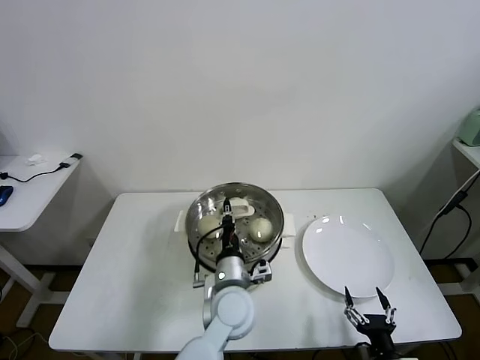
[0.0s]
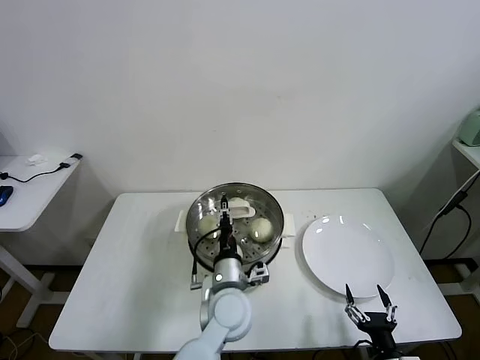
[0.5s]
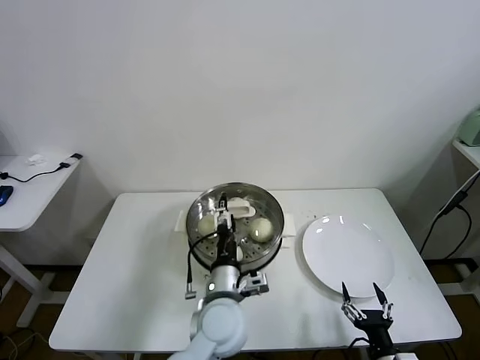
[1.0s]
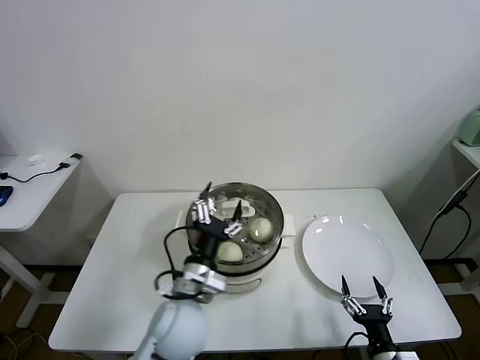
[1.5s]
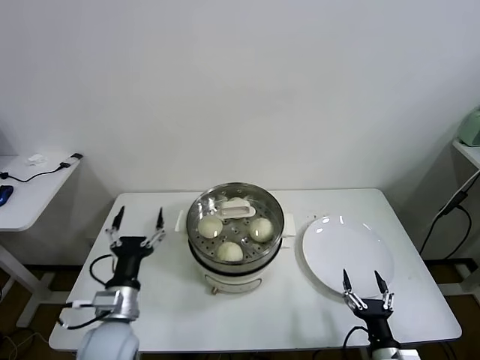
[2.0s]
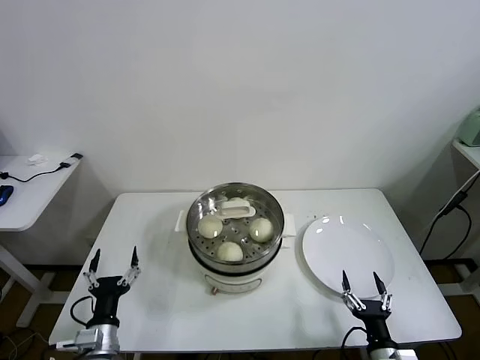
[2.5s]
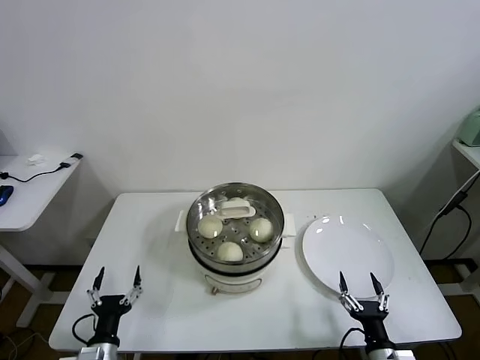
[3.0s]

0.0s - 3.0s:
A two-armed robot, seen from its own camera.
Task of the whole recording: take steamed baozi put them in steamer.
0.0s - 1.5s: The left gripper is displaced to the left by approximately 5 cm, and opens.
1.5s - 3.0s: The left gripper moves to the left, downward and backward, about 30 cm.

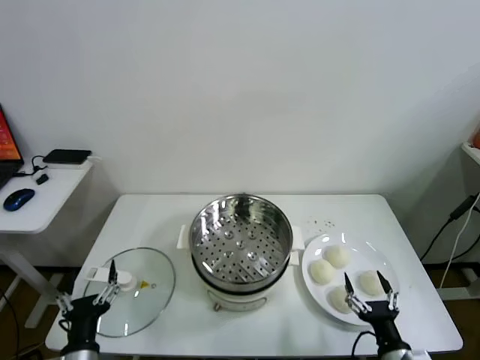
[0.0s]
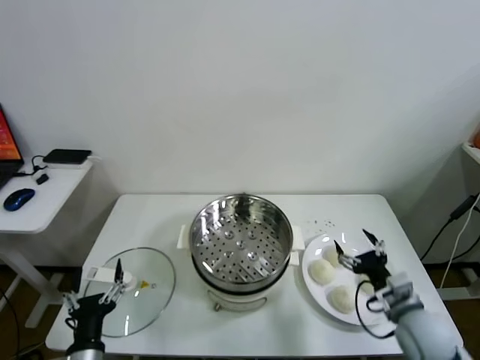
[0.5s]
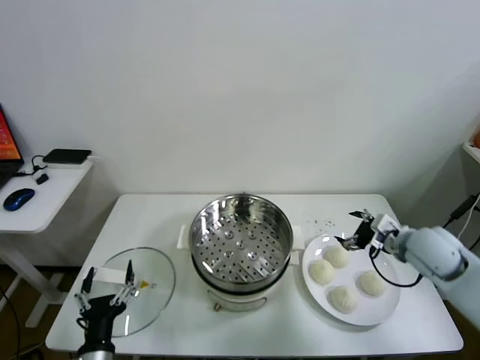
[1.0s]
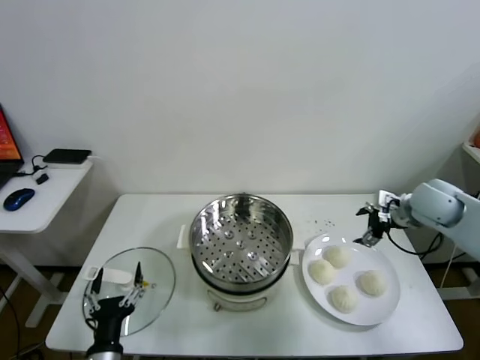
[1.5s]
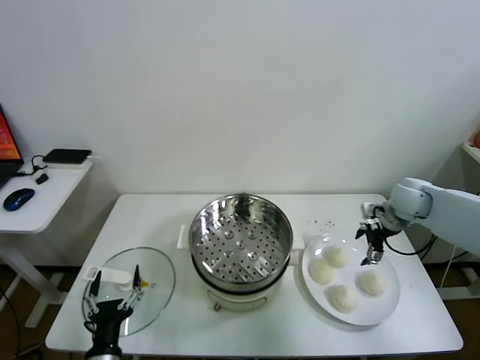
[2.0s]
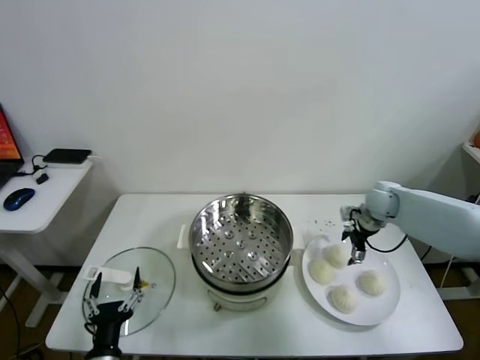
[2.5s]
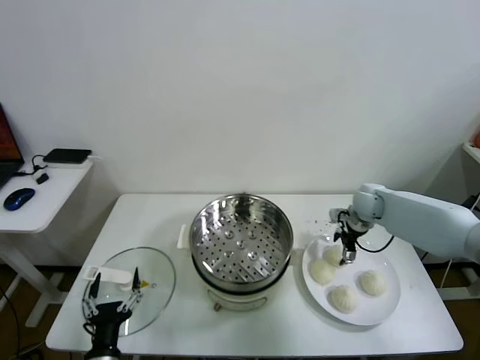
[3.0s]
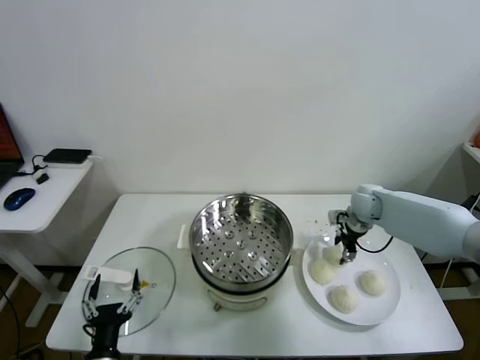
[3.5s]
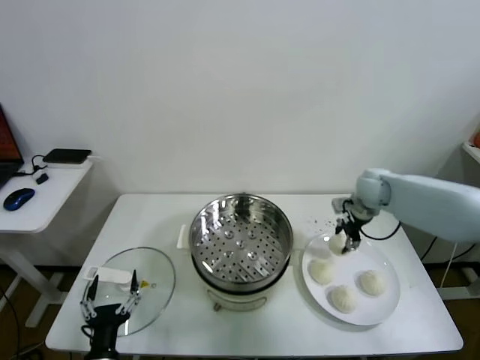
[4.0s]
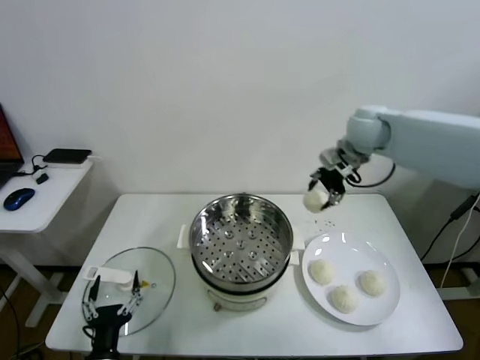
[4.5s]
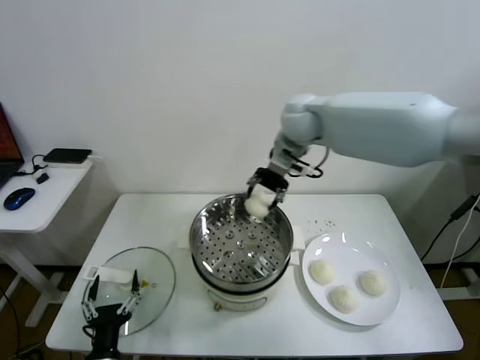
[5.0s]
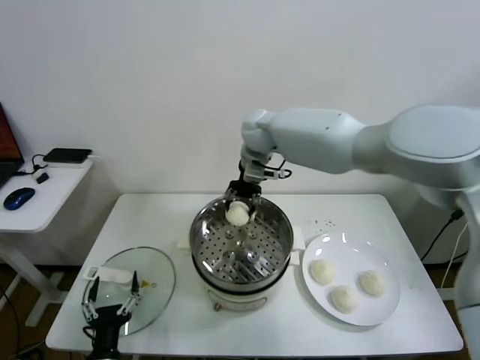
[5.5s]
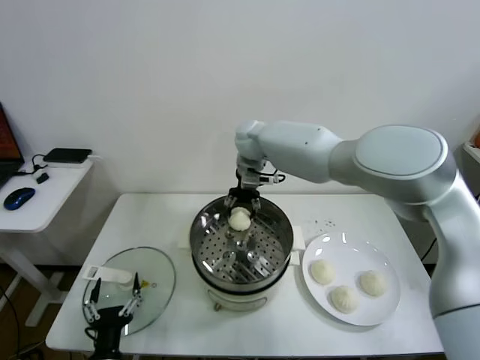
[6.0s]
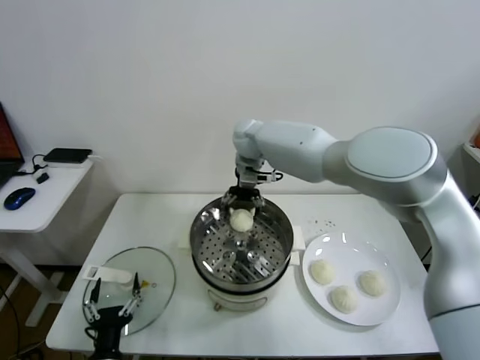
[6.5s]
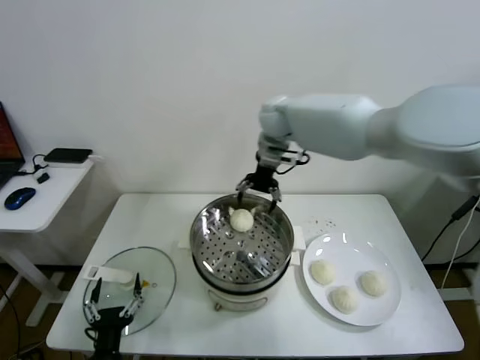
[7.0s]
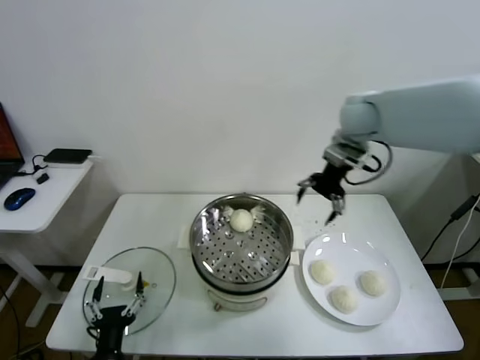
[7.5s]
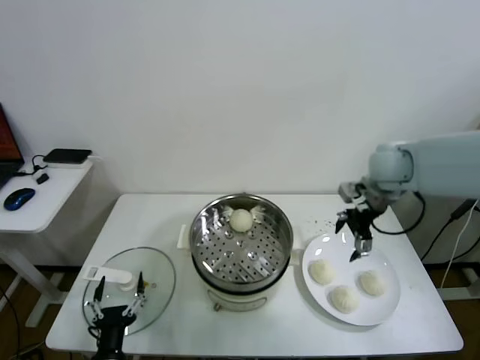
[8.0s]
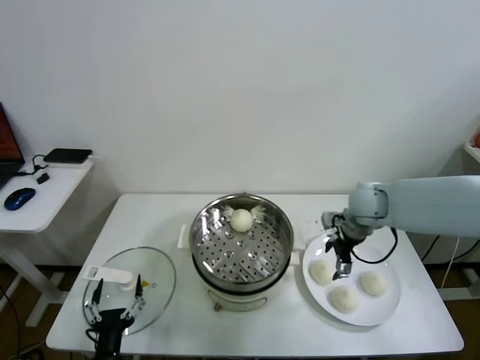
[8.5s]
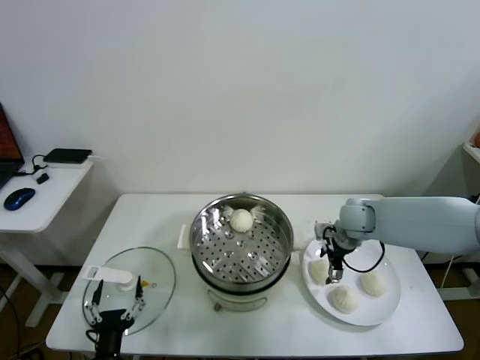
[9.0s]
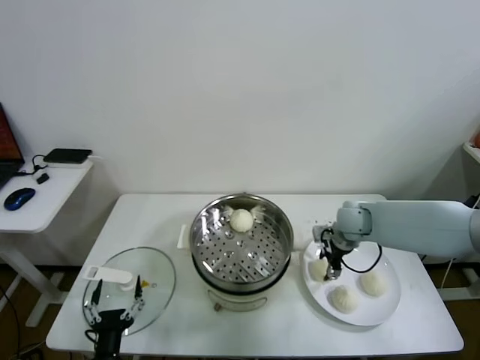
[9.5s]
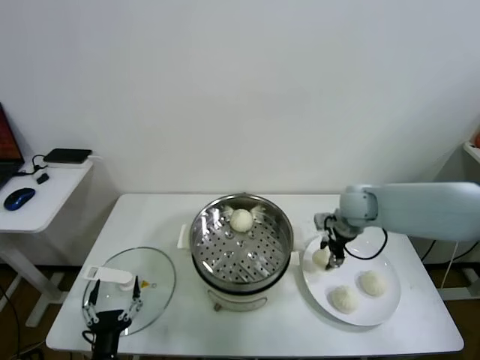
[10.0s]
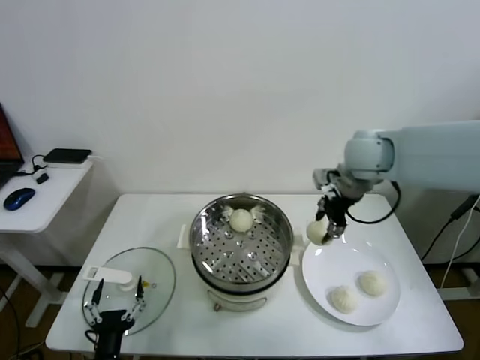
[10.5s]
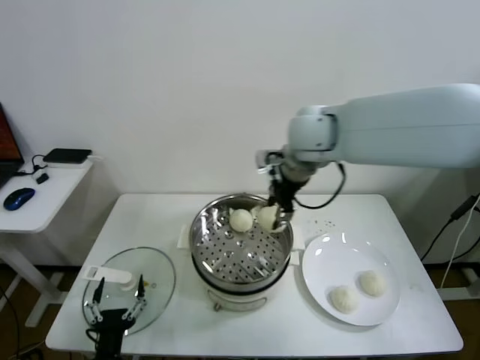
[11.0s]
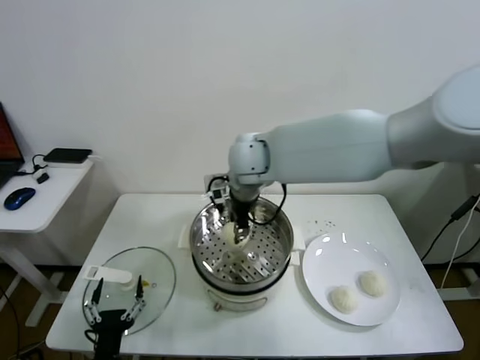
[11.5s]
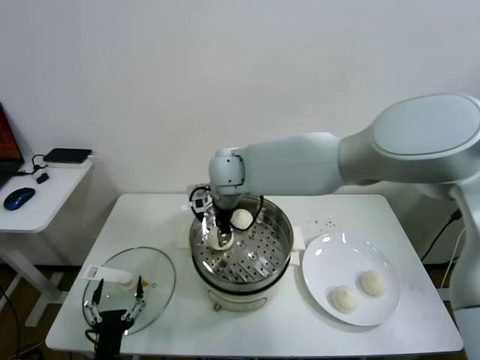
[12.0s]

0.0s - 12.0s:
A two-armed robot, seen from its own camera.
Task of the whole recording: take steamed baozi put them in steamer.
Step, 0.0s - 3.5s: Grasp the baozi in the plate with right gripper.
Step, 4.0s - 6.5s: Place the baozi on the steamer with right gripper.
Step, 7.0s - 9.5s: Grasp the baozi in the plate with right gripper.
2.0s - 4.0s: The right gripper goes some 5 cm to the left, and closes its fingers.
4.0s - 6.0s: The right gripper travels to the left by roughly 30 cm.
6.0s - 8.0s: The right gripper goes some 30 cm to the right and backward, and opens.
8.0s - 10.0s: The right gripper travels downward by some 10 cm, and closes up.
10.0s - 12.0s: The right gripper is displaced to the left by approximately 30 cm.

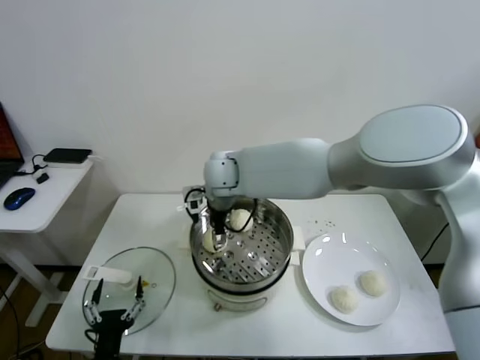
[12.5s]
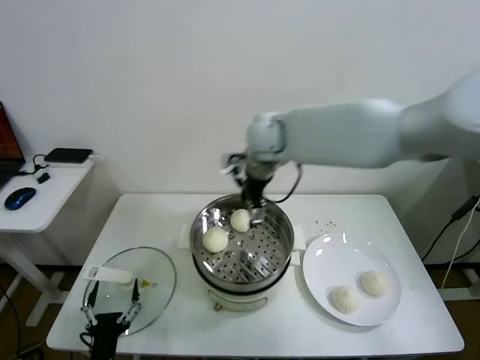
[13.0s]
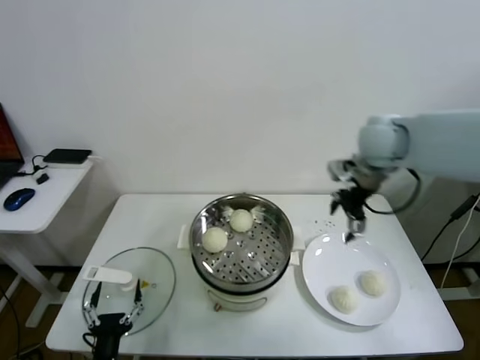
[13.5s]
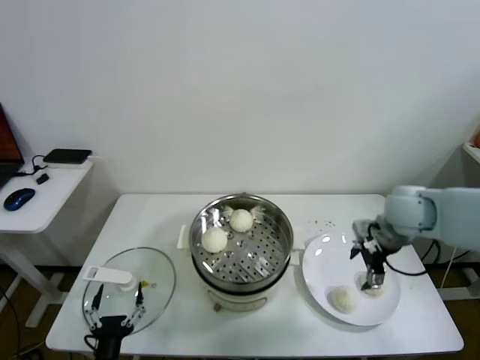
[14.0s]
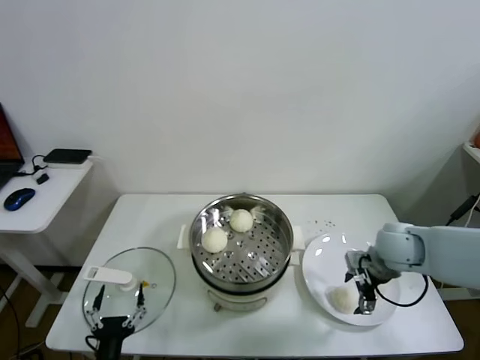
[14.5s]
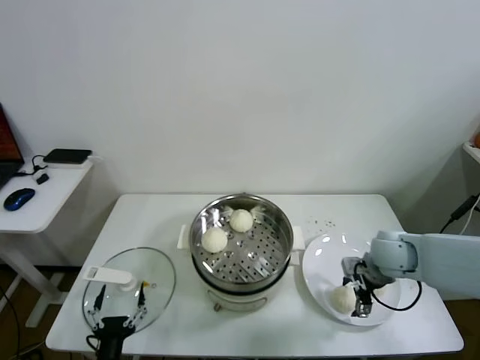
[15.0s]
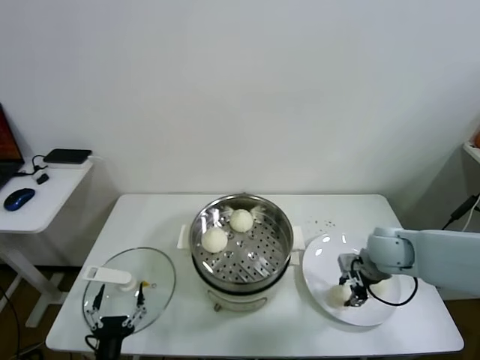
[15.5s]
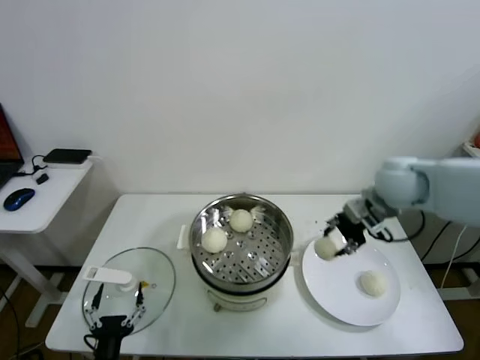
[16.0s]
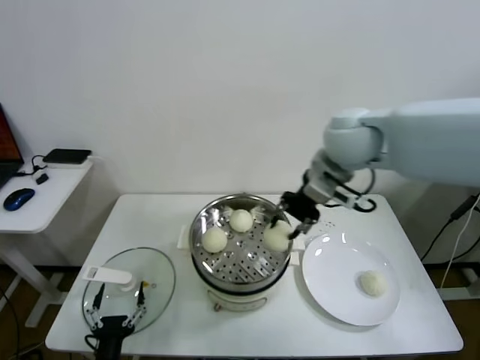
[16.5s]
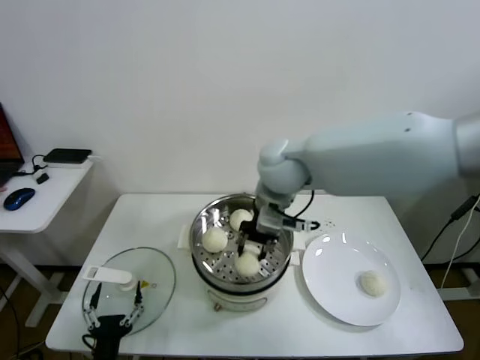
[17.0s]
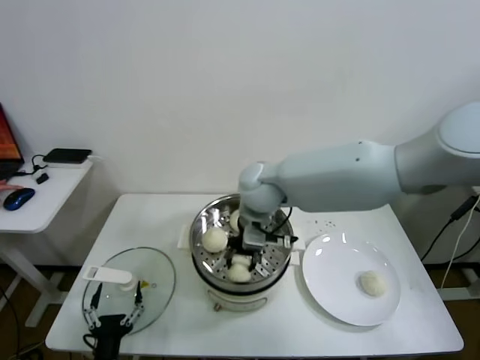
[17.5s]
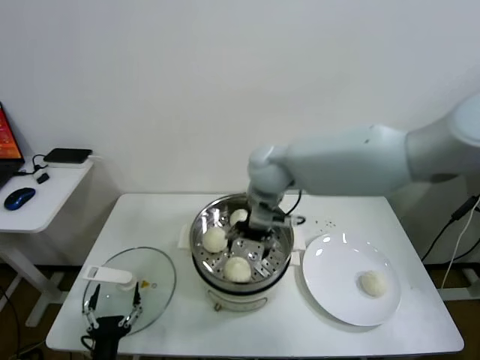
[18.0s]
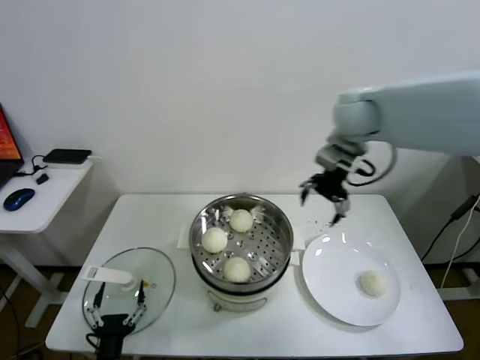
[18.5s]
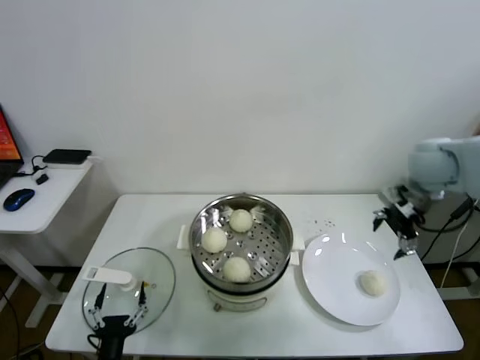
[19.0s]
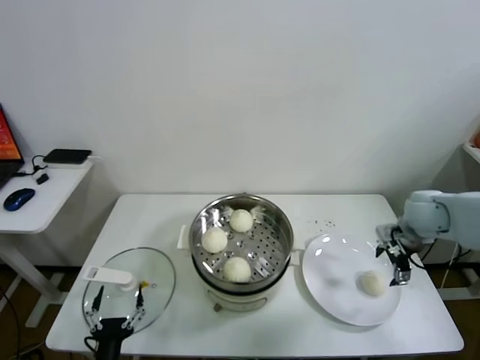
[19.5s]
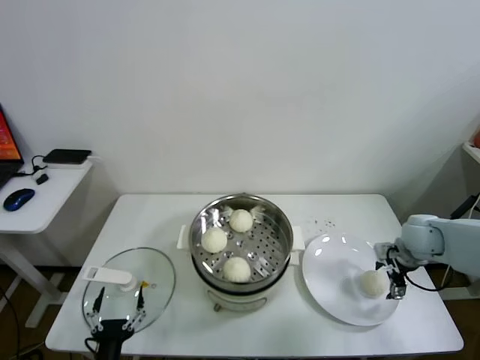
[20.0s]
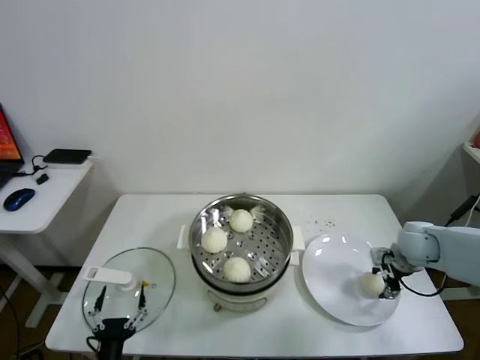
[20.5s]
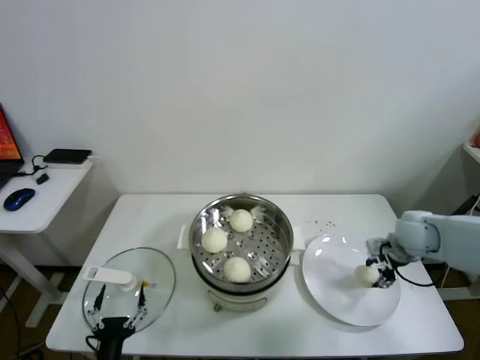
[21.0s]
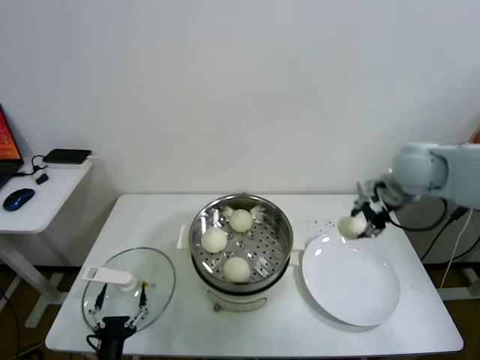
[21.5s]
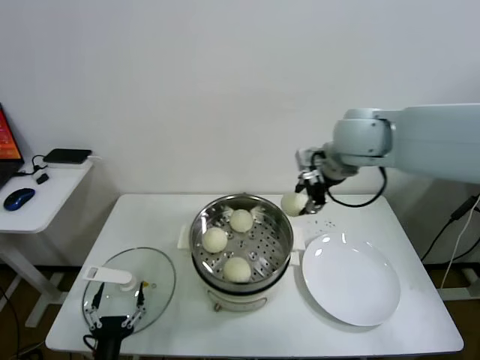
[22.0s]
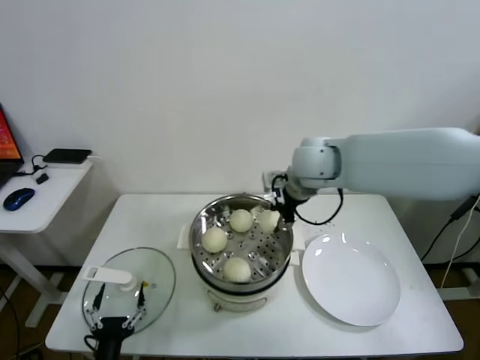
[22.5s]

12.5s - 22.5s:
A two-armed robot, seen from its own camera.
Task of the whole recording: take steamed baozi put them in steamer.
Step, 13.0s - 15.5s: Grasp the baozi in the plate with right gripper.
Step, 16.0s - 17.5s: Place the baozi on the steamer with right gripper.
Step, 18.5s - 20.5s: Grasp the baozi in the plate with right gripper.
12.5s - 14.5s: The right gripper heads to the right, covering approximately 35 cm.
14.5s - 16.5s: The right gripper shifts some 30 cm upward and to the left, and closes its fingers.
16.5s - 18.5s: The right gripper goes about 5 cm forward, travels to the left and back again, about 15 cm each way, and opens up.
18.5s - 20.5s: The right gripper travels downward and to the right by some 35 cm, and closes up.
20.5s - 22.5s: The right gripper moves to the left and upward, about 35 cm, and closes its fingers.
